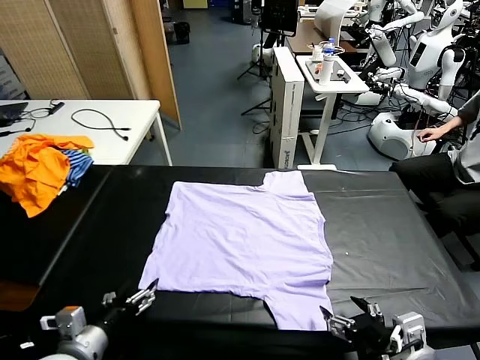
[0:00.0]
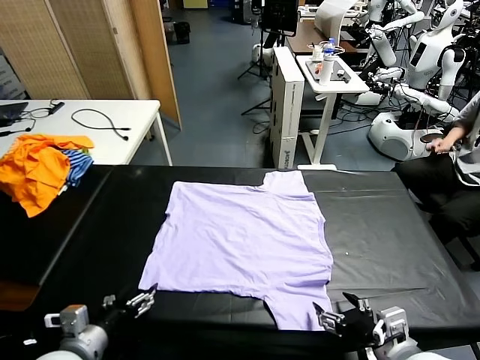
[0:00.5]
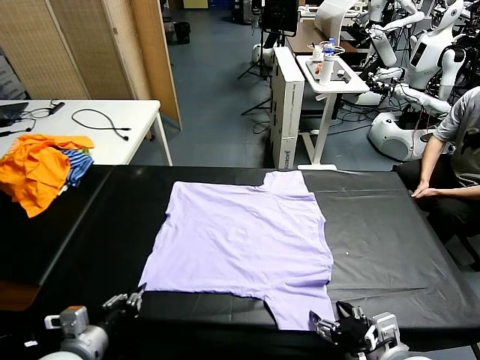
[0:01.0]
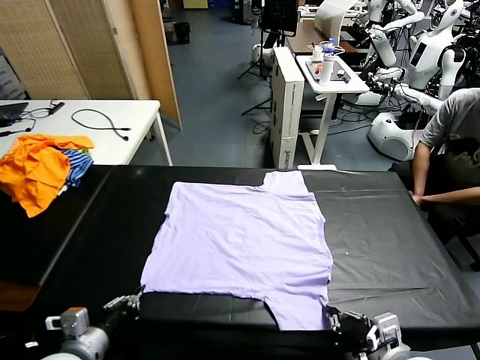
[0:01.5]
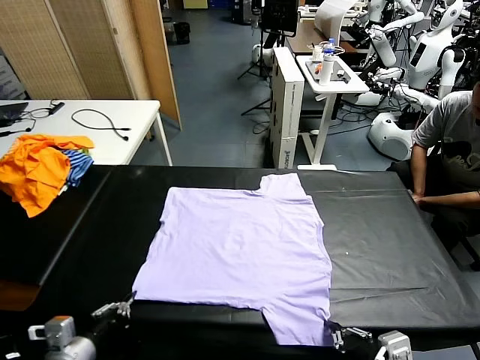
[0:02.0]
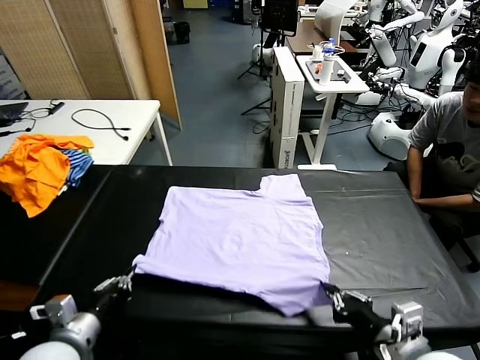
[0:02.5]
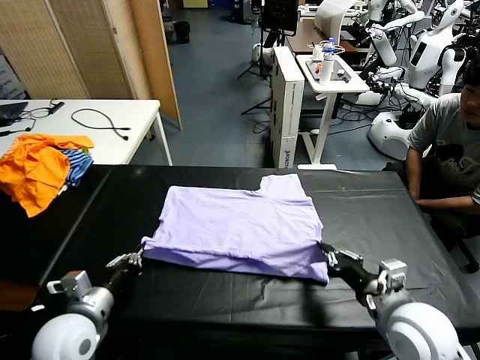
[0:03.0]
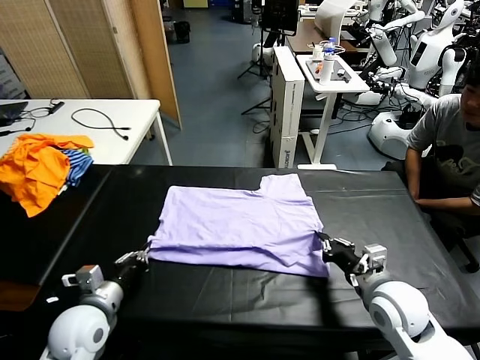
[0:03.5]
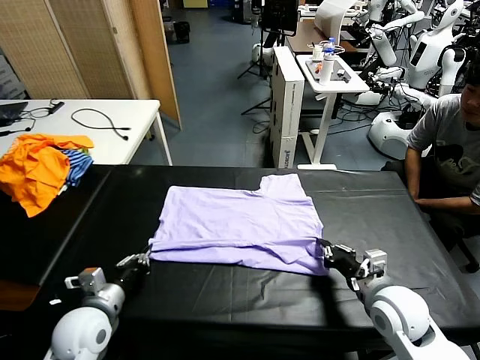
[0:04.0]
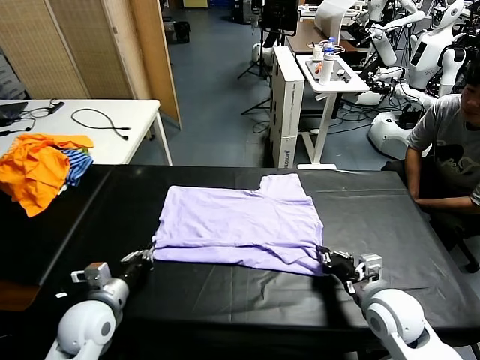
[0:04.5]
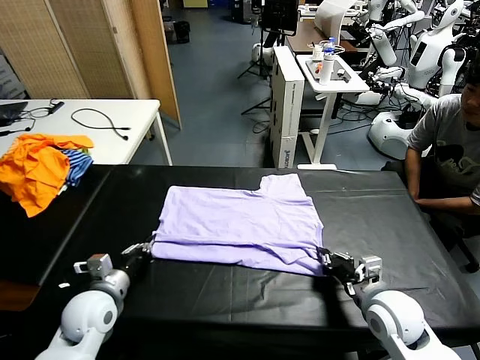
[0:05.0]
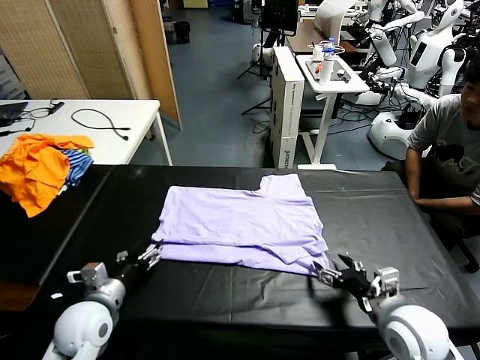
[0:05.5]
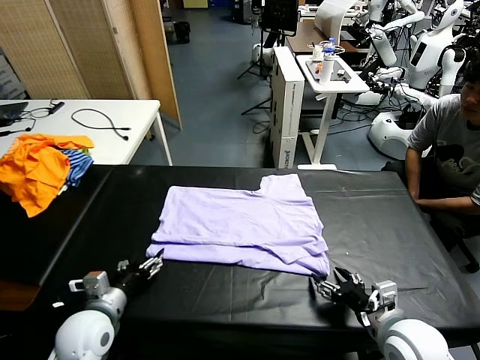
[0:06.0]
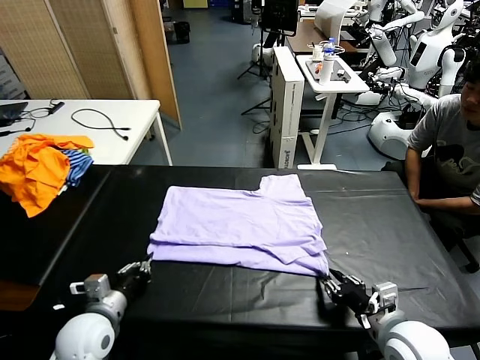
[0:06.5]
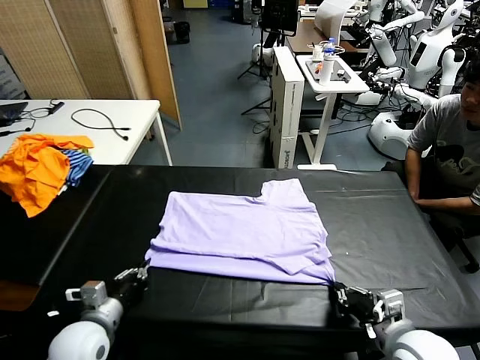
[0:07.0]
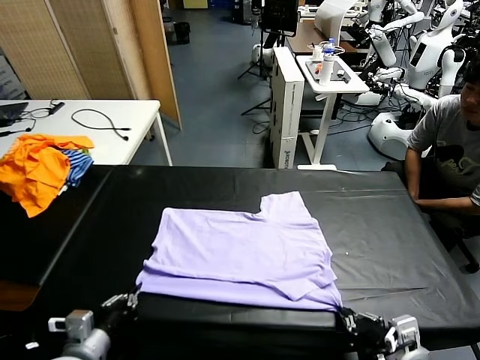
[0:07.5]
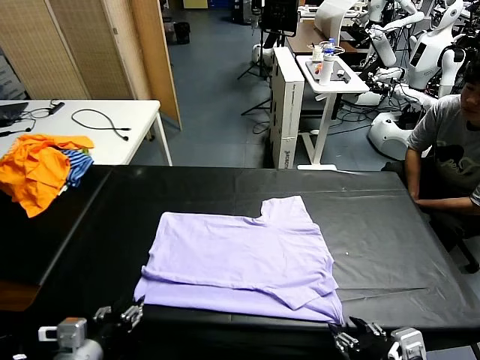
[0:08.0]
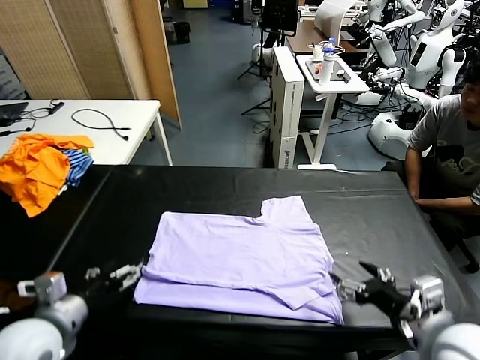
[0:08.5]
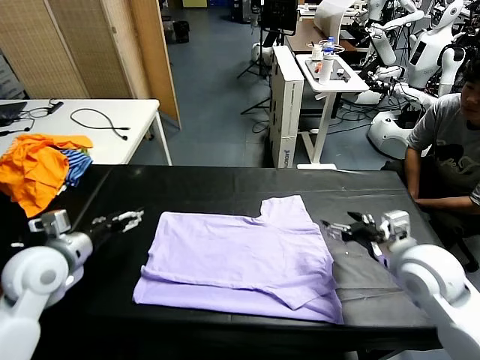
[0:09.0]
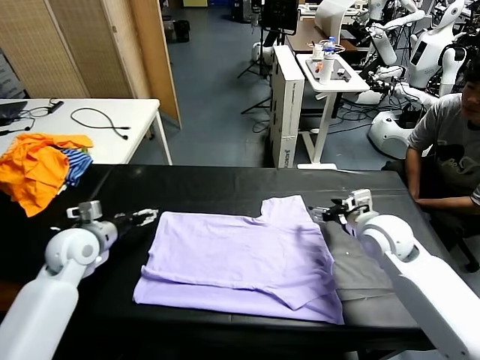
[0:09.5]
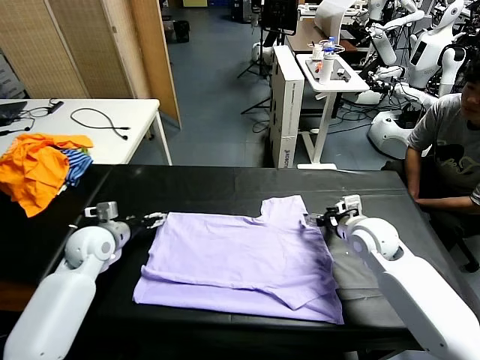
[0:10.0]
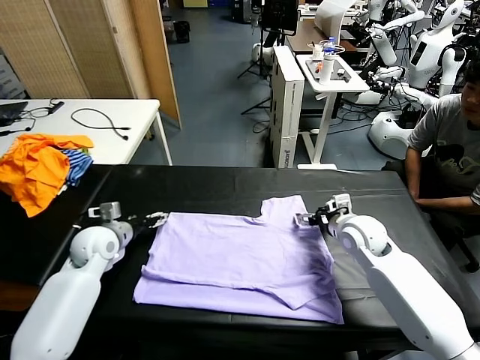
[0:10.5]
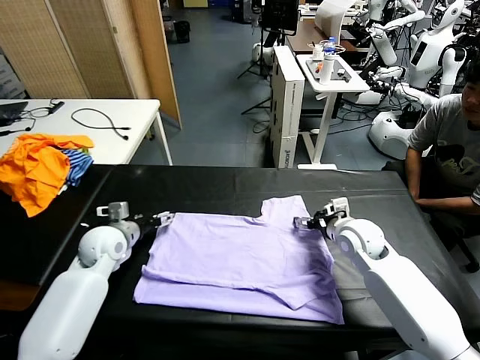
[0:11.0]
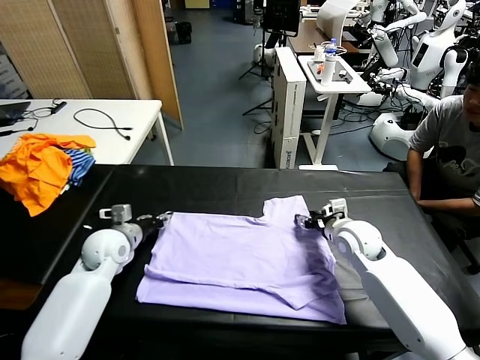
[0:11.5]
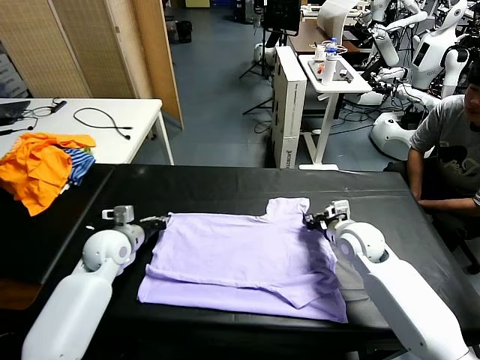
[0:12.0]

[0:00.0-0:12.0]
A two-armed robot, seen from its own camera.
Task of the whole recording: fold and organize the clothes.
Step, 0:00.0 to 0:02.0: use both grippers simultaneously to clamp the lower edge of the clothing fabric.
Step, 0:02.5 to 0:05.0: use both grippers to drag the lower edge of the fabric forward and fold it over the upper edge.
Step, 0:05.5 to 0:08.0: Drag the clothes downward with both gripper.
0:02.0 to 0:04.0: The left gripper shifts roughly 10 cm forward; the right gripper heads forward and downward, covering roughly 15 cm.
0:04.0 to 0:06.0: The left gripper opens. The right gripper shifts approximately 5 cm backward, and opens its fingers.
0:06.0 to 0:08.0: Both grippers travel together backward and upward, some 10 cm. The left gripper closes and opens again. Meanwhile the right gripper opens.
0:08.0 to 0:10.0: The two grippers go roughly 30 cm forward.
0:10.0 to 0:12.0: The right gripper closes; the left gripper closes.

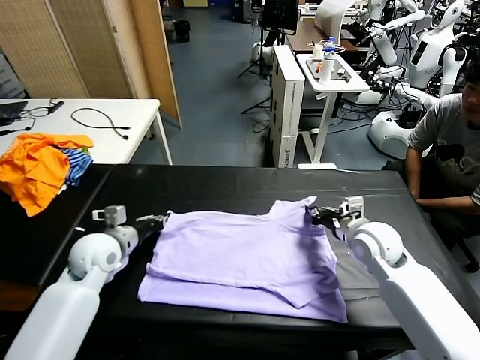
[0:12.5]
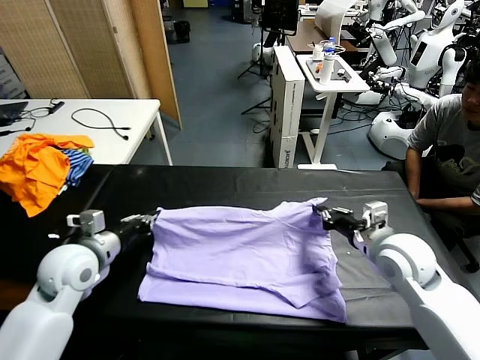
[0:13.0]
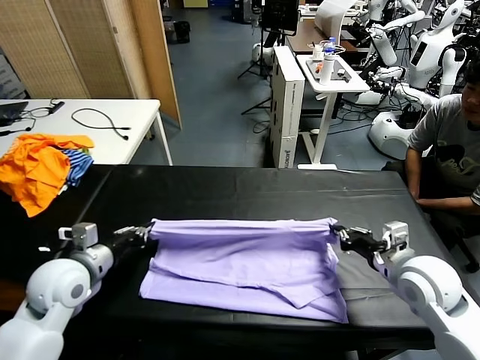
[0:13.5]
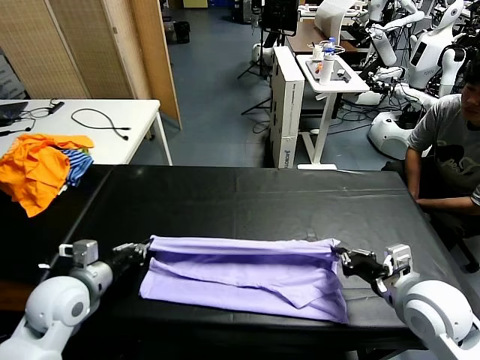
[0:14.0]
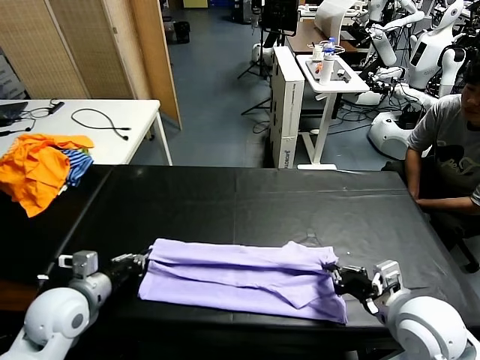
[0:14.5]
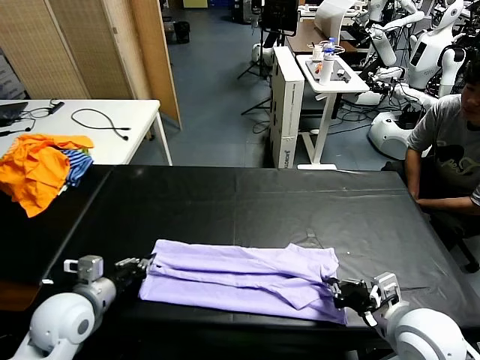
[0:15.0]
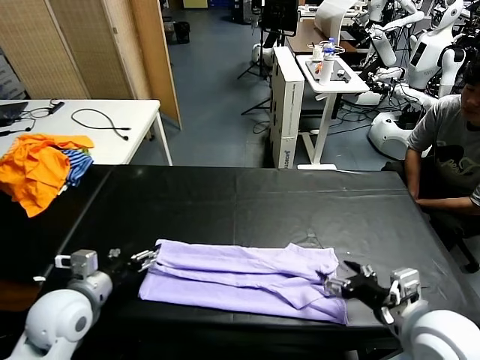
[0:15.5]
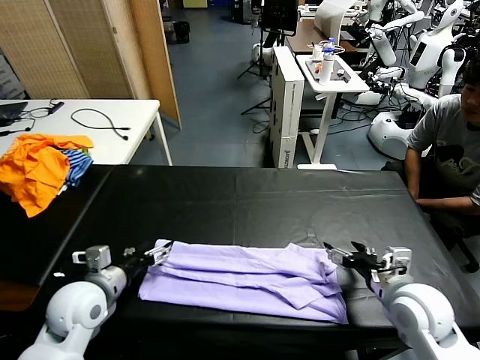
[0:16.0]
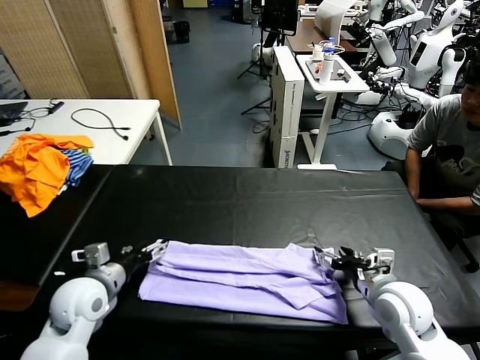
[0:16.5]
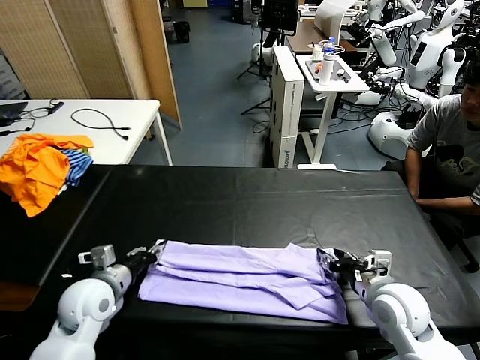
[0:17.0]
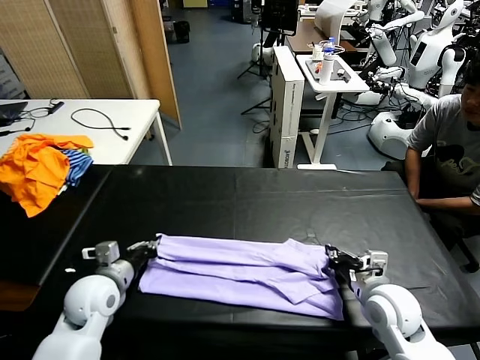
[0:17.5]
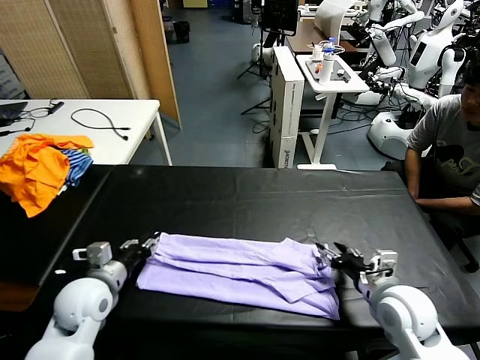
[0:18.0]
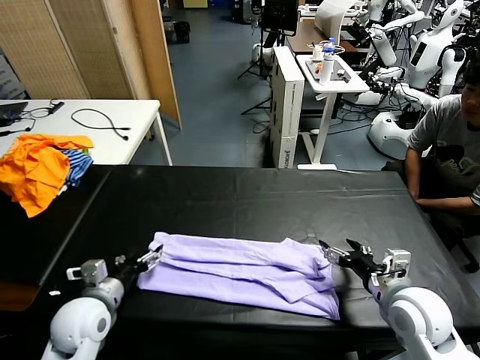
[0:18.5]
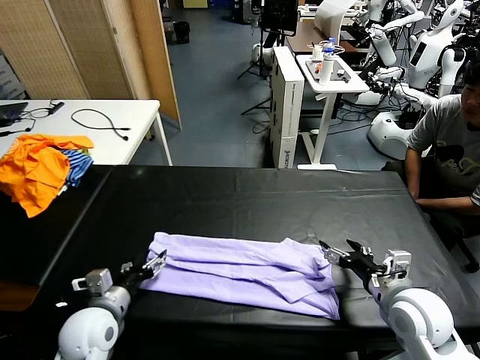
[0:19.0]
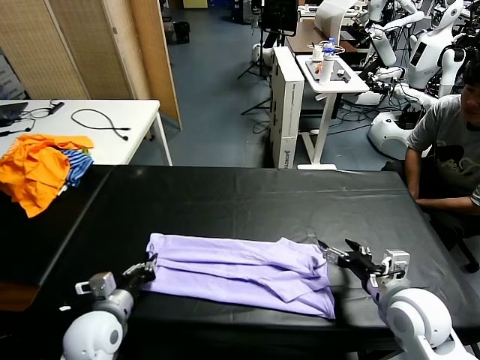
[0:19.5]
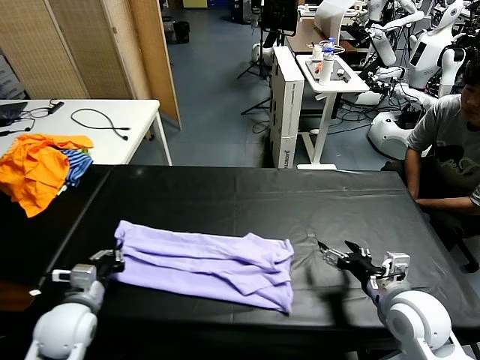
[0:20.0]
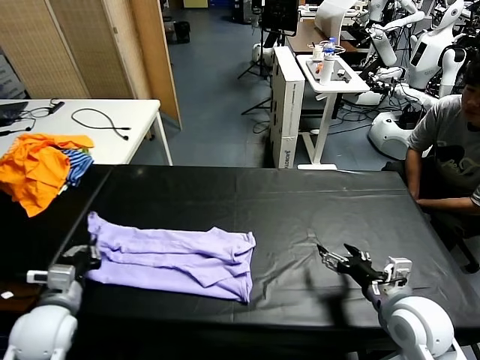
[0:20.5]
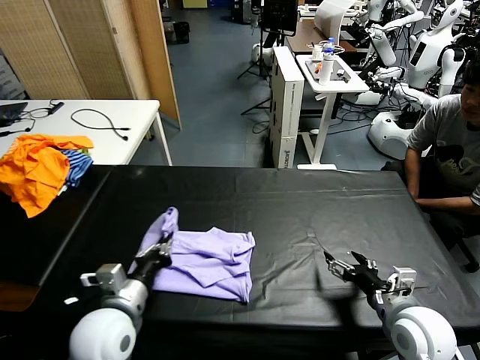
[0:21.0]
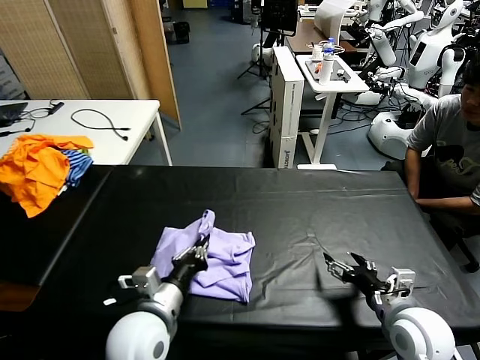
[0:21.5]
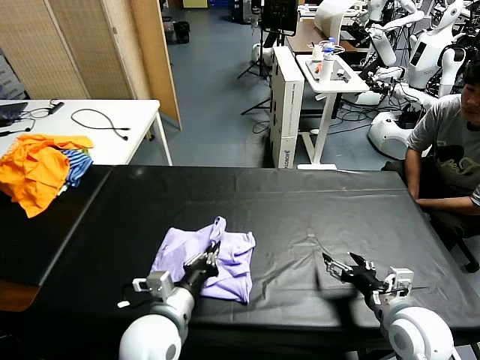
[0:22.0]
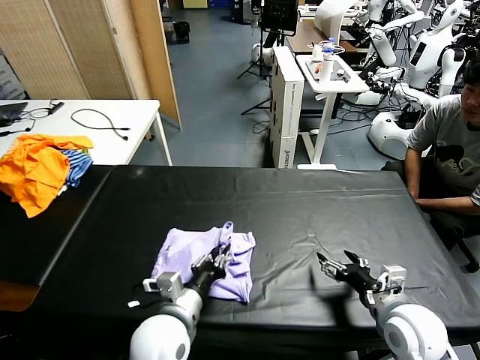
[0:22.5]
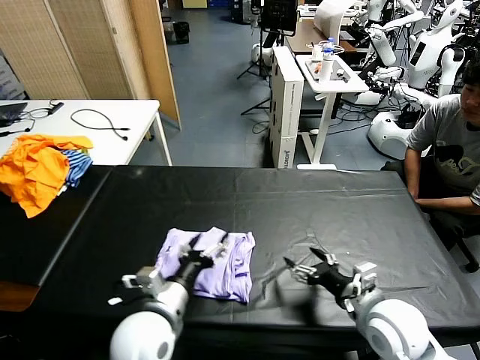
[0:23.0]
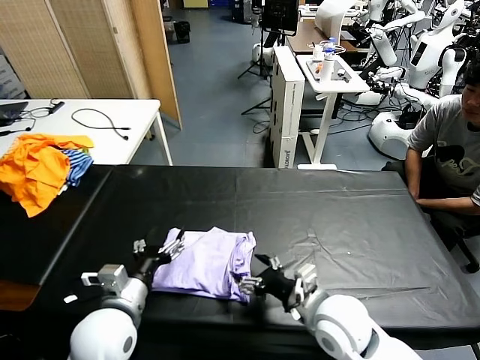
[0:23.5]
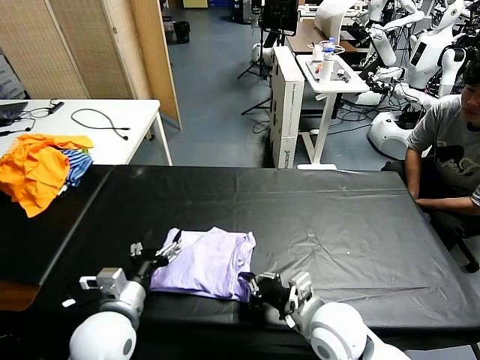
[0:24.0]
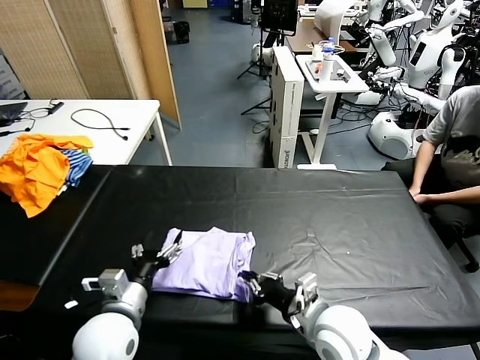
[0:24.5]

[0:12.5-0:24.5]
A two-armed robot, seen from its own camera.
Task of the whole recording: fold and organize the clothes.
Step, 0:12.5 to 0:15.0: use both grippers to drag the upper edge of the fabric backward and fold it over the lower edge.
Step, 0:15.5 to 0:19.5: use the left gripper to clamp the left edge of the fabric.
Step, 0:20.0 to 0:22.5: use the left gripper to drag the left edge of the fabric to the left and folds it over the right edge.
0:12.5 to 0:14.5: The grippers both shift backward by about 15 cm.
0:14.5 to 0:16.5: The left gripper opens; the right gripper is displaced forward and downward by about 10 cm, and opens.
0:16.5 to 0:18.5: The right gripper closes, then opens again. Meanwhile the left gripper closes, then reopens.
0:18.5 to 0:20.5: The left gripper goes some 5 cm to the left, and closes up.
0:20.5 to 0:22.5: The left gripper heads to the right, covering about 20 cm.
0:22.5 to 0:24.5: The two grippers go roughly 10 cm to the left. The left gripper opens up. The right gripper closes up.

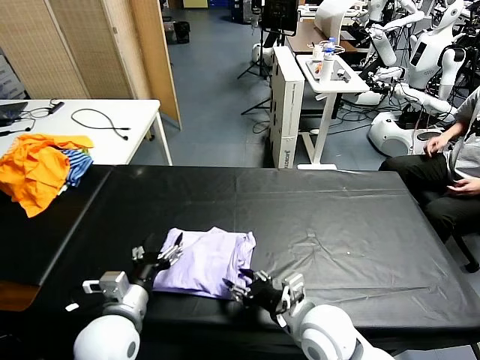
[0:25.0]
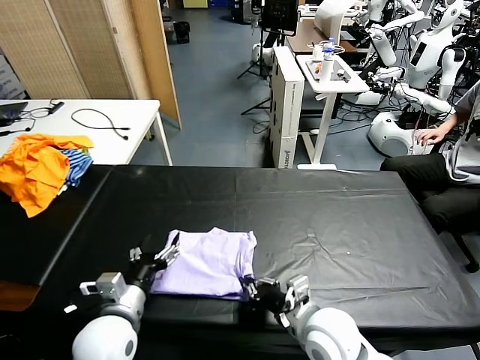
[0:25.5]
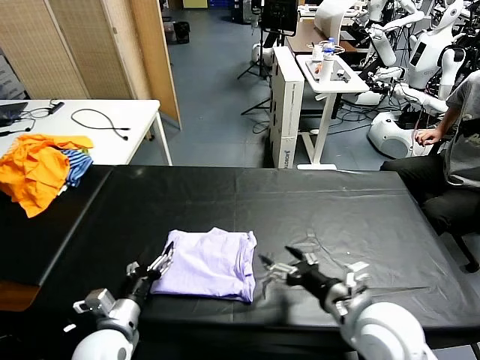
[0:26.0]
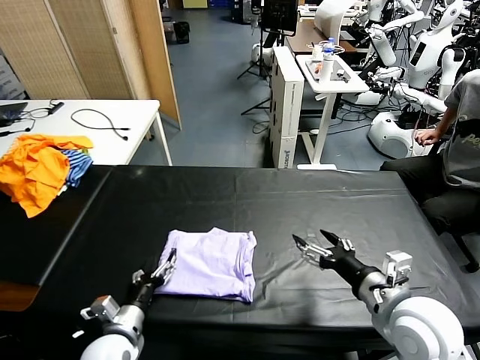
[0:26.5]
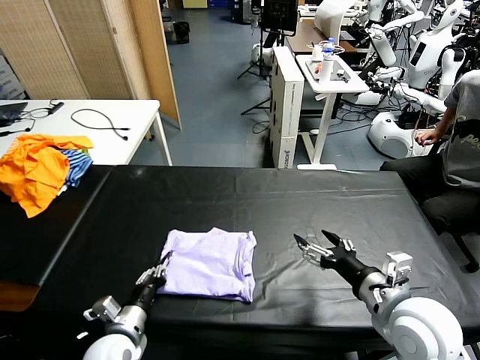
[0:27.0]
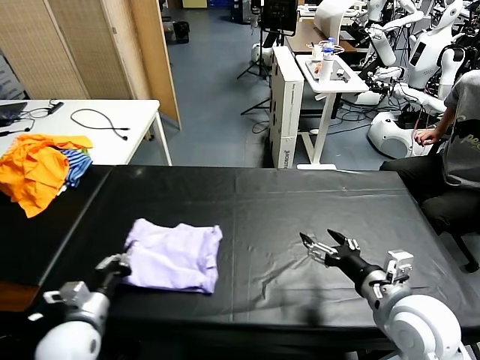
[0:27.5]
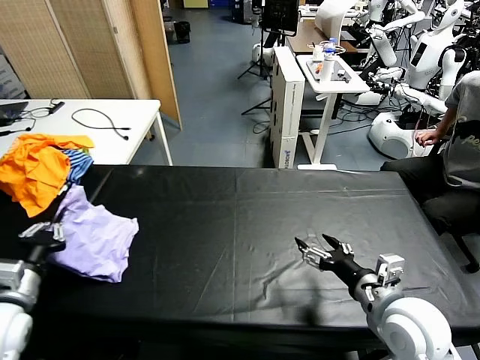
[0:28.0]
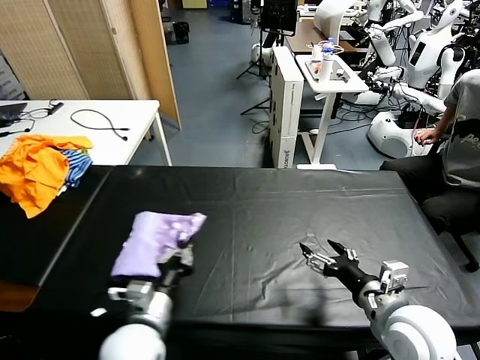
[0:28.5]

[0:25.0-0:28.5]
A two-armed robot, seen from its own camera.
Task of the whole recording: fold and organize the clothes.
0:25.0 to 0:27.0: The right gripper shifts some 15 cm to the right and upward, and opens. The left gripper goes roughly 10 cm downward, and closes.
0:27.0 to 0:28.5: The left gripper is displaced upward by some 10 cm, and reaches some 15 cm to the left, then returns.
